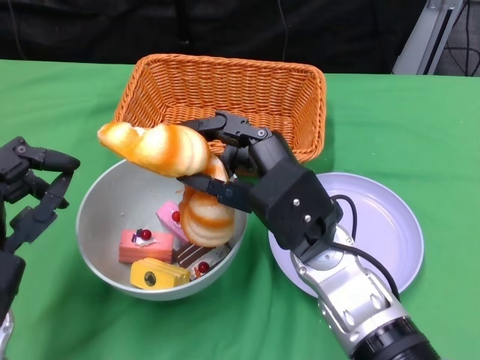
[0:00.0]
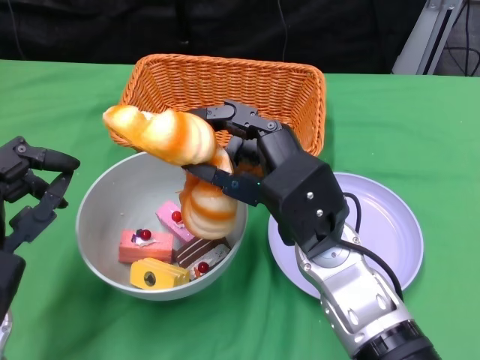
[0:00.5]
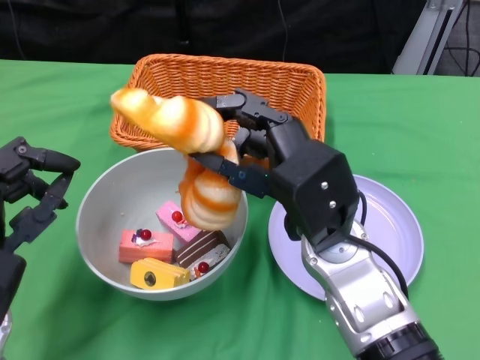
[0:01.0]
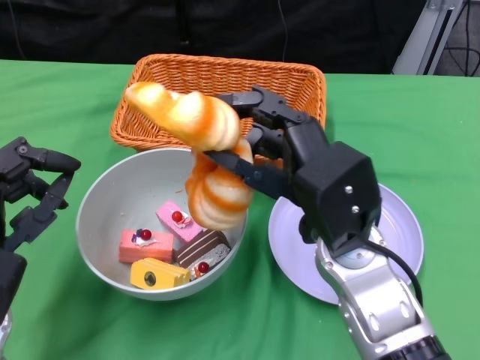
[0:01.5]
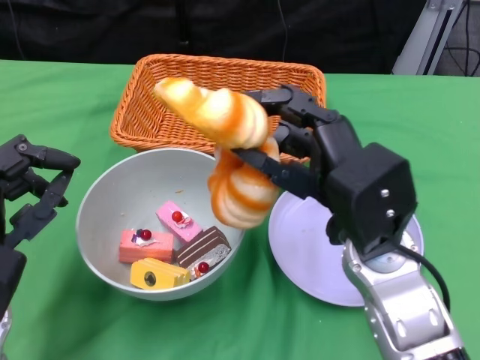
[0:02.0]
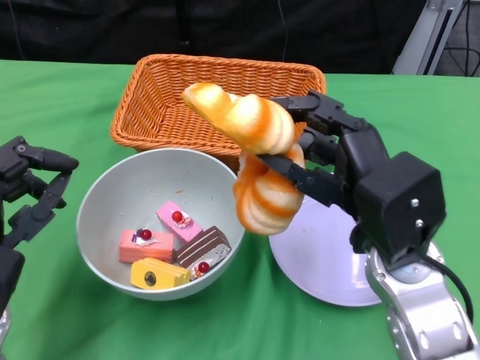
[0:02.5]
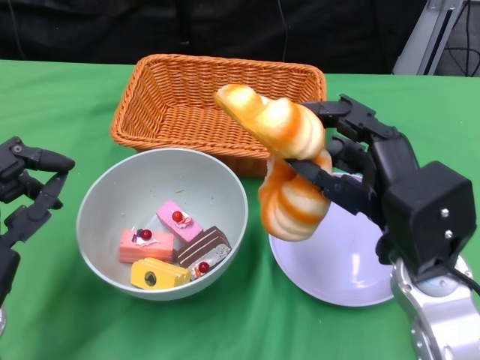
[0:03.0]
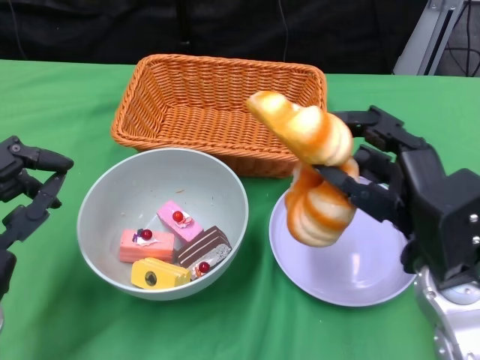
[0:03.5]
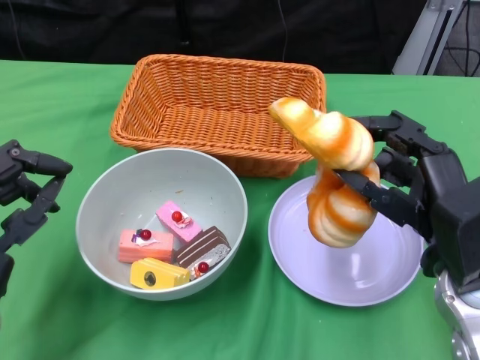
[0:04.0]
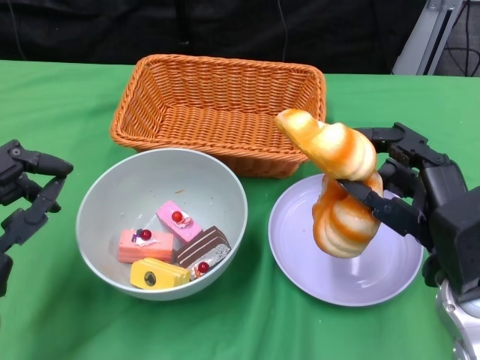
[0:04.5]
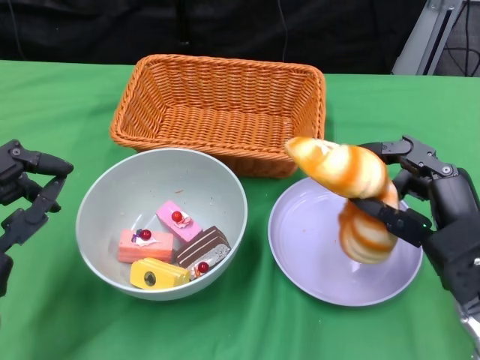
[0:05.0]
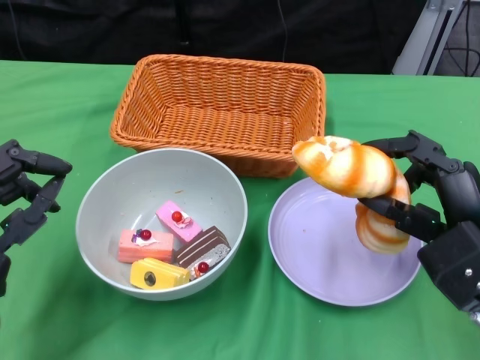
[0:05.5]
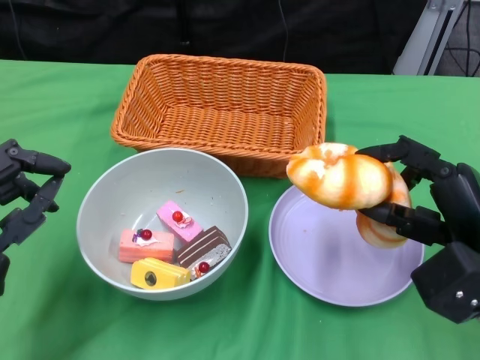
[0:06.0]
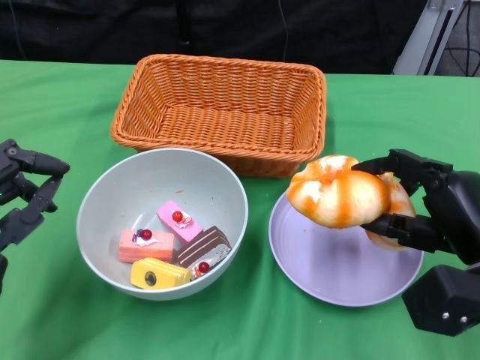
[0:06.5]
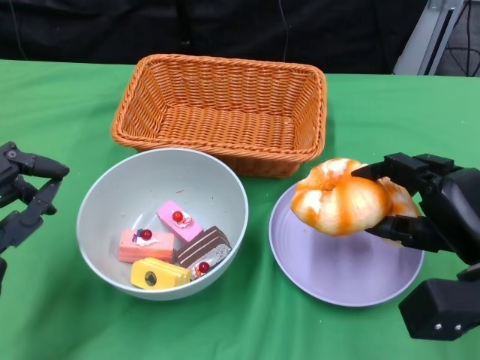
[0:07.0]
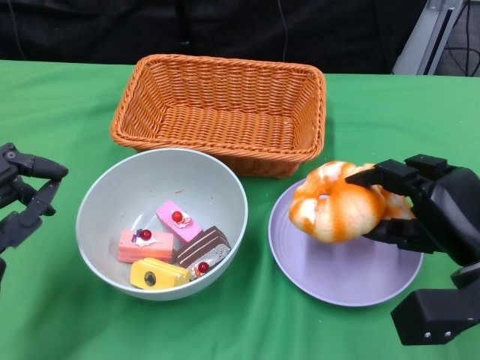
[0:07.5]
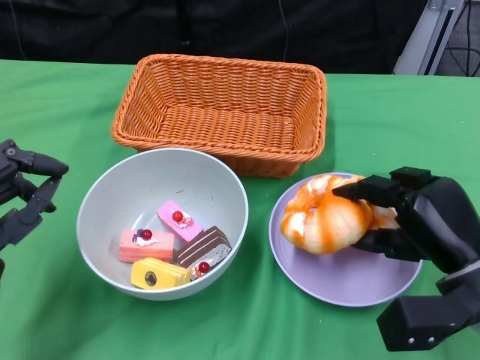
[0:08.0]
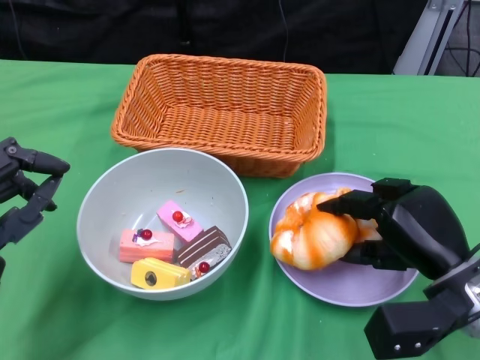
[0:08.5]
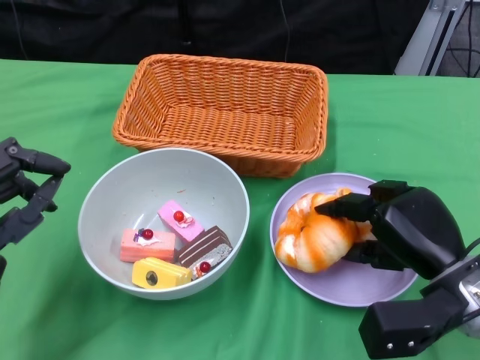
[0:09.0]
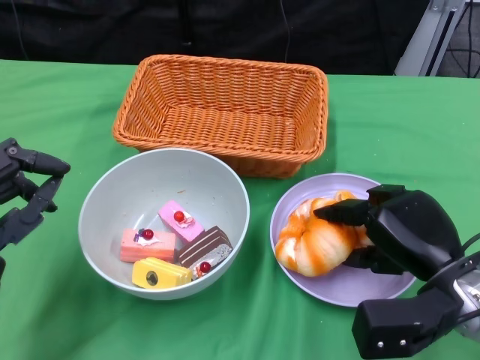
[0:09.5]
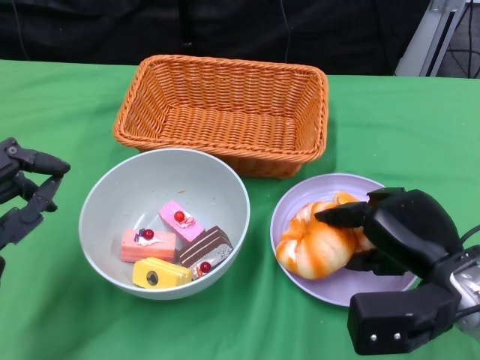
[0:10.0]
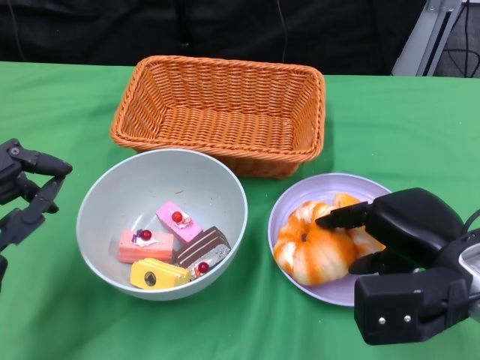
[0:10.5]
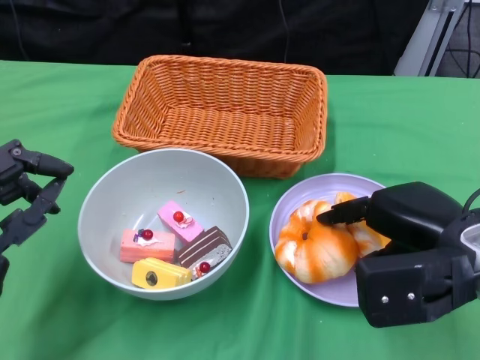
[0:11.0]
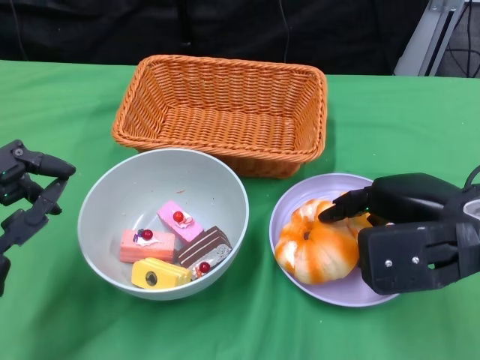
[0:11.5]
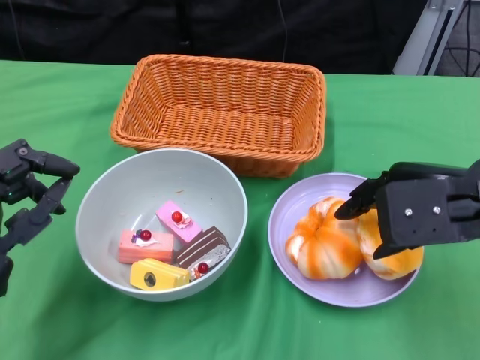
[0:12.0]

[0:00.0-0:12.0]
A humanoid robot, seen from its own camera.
0:00.0 to 0:02.0: The right hand changes place by some 5 cm.
0:02.0 to 0:04.0: The right hand is displaced to the right by roughly 10 cm.
0:04.0 to 0:06.0: The right hand changes place by approximately 5 cm.
0:10.0 to 0:12.0: The right hand heads upward, covering about 10 cm.

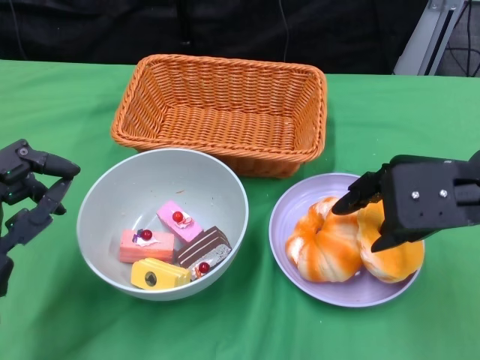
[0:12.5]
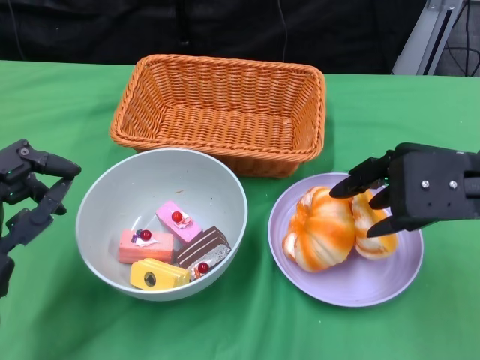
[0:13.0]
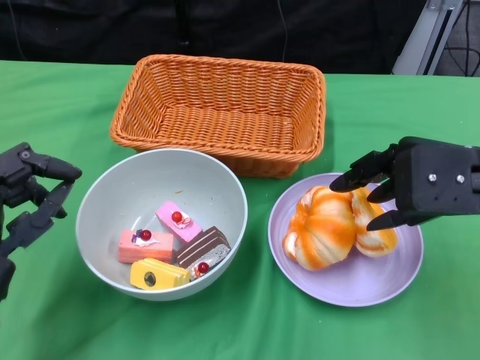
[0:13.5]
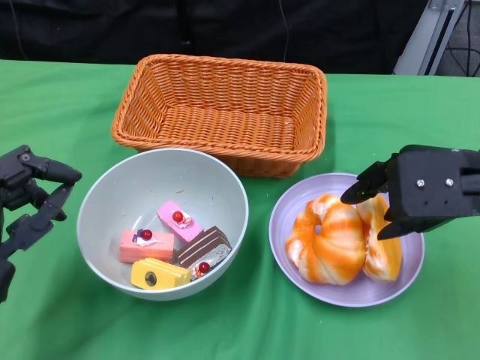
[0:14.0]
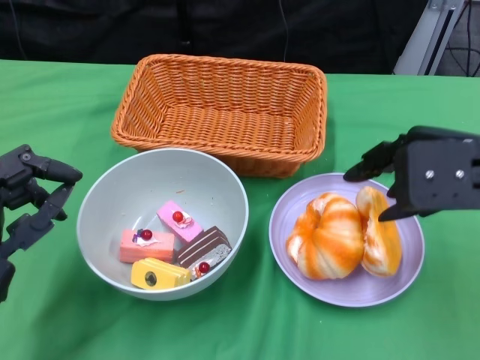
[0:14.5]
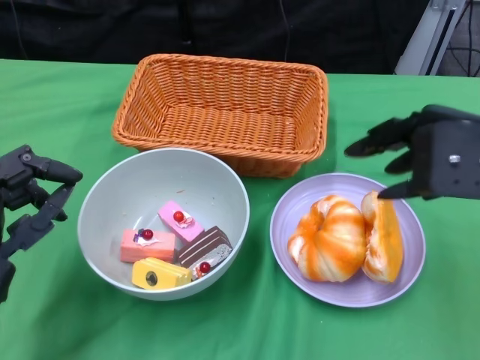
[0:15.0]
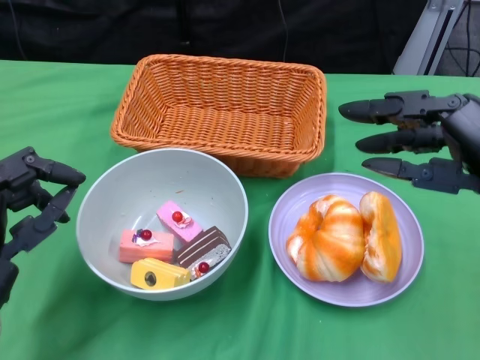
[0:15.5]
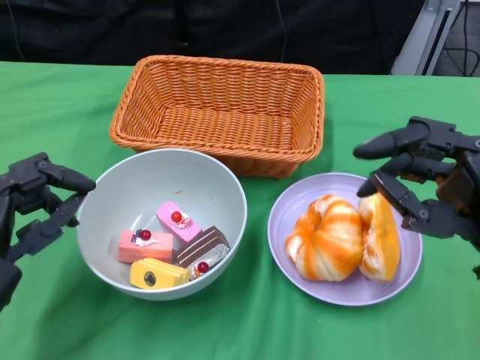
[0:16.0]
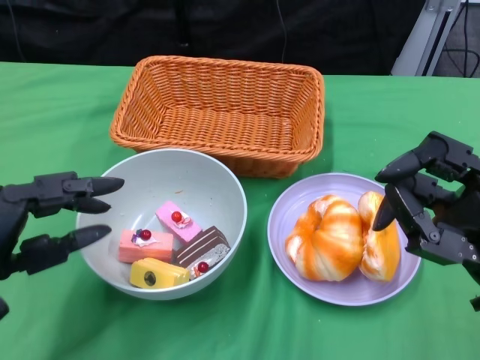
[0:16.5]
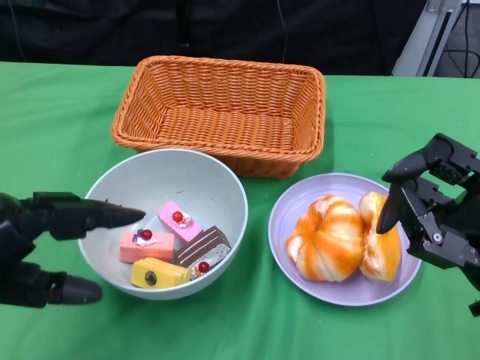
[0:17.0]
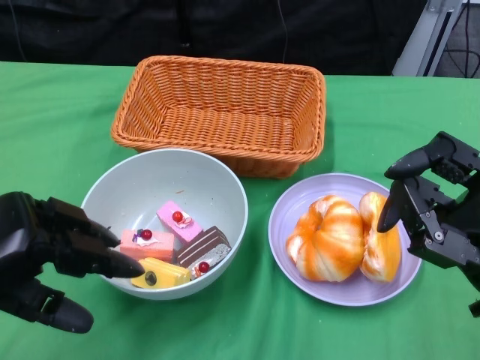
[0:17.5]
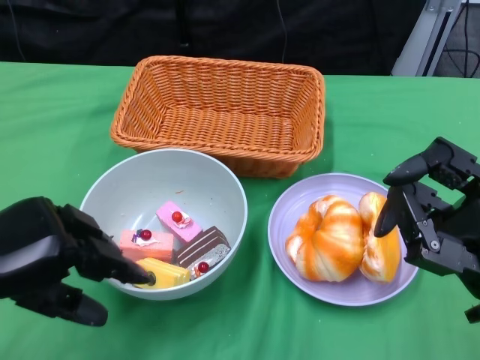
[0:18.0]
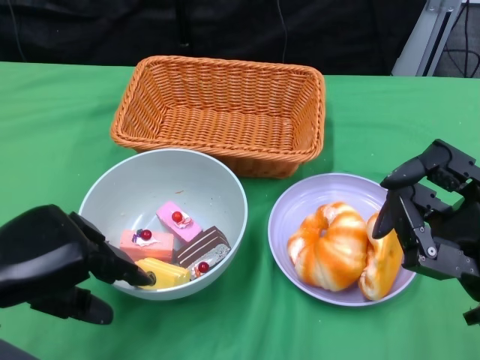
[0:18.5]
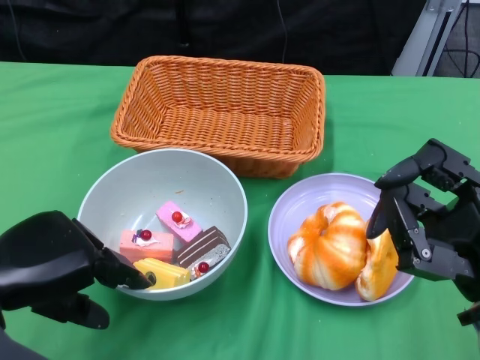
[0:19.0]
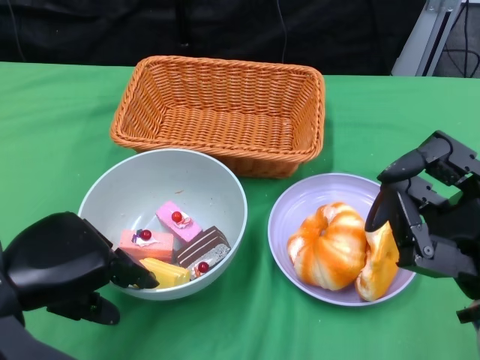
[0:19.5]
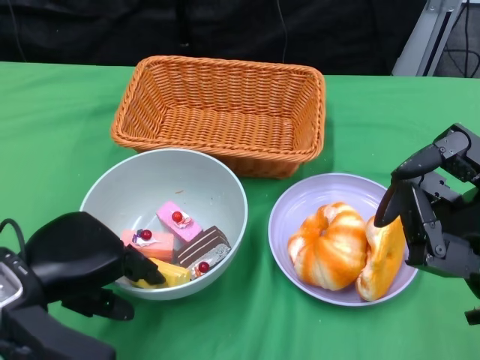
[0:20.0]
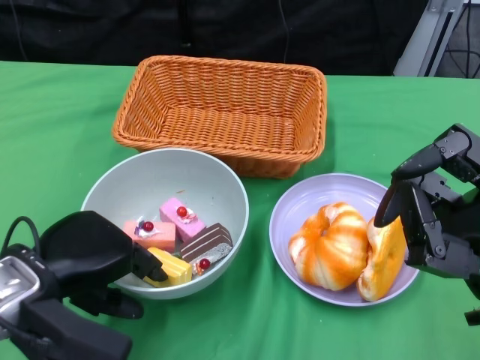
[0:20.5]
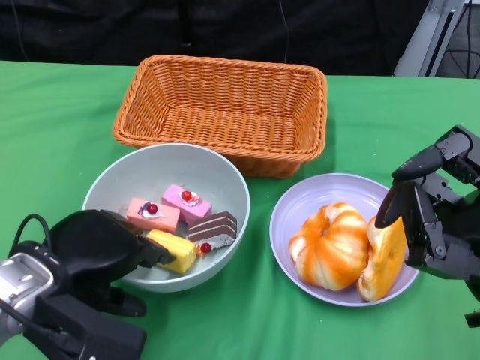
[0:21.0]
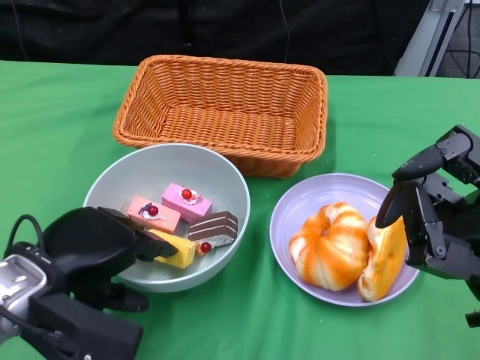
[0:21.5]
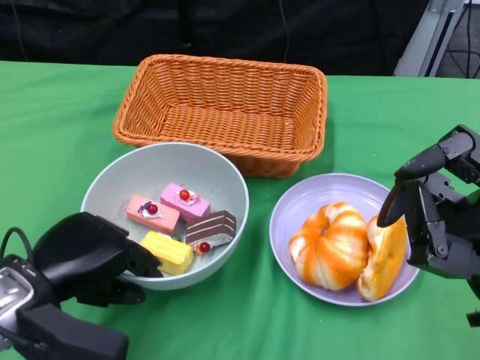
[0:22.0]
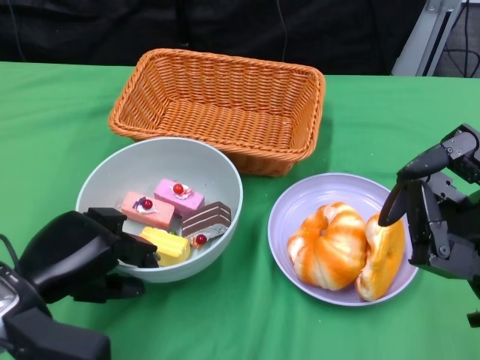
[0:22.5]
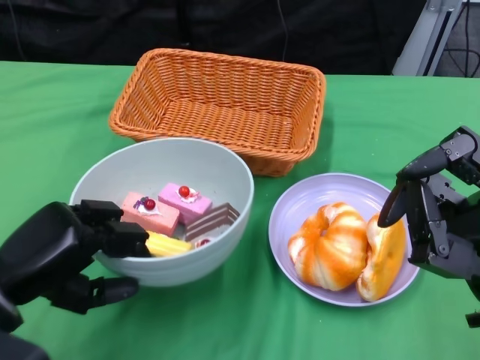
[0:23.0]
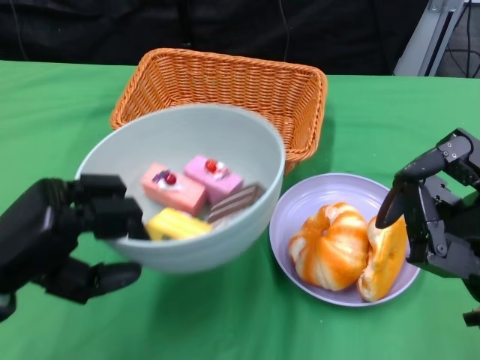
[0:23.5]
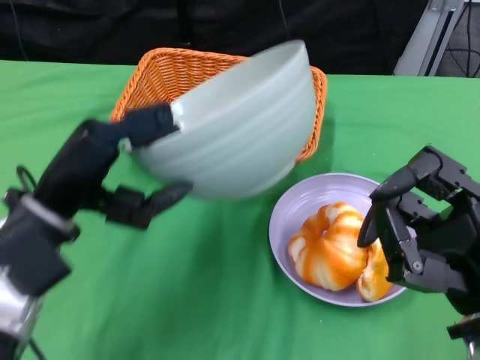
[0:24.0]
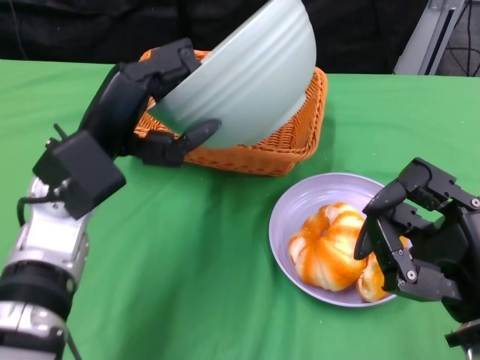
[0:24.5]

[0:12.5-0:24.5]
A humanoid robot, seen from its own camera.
Step, 0:12.5 to 0:22.5: Grasp the bowl with the left gripper.
0:12.5 to 0:14.5: The hands make only small movements.
0:14.5 to 0:16.5: The right hand travels backward and downward by some 10 cm.
0:18.5 to 0:20.5: The left hand ends up about 5 cm from where it was.
0:22.5 to 0:24.5: The left hand shifts about 15 cm upward, forward and to the right.

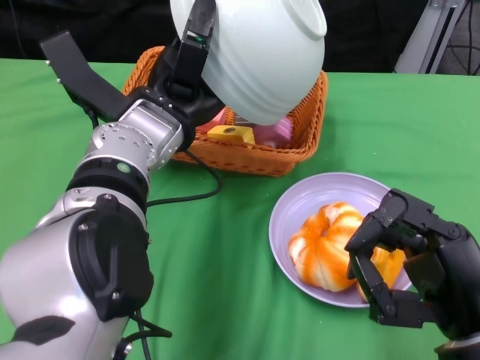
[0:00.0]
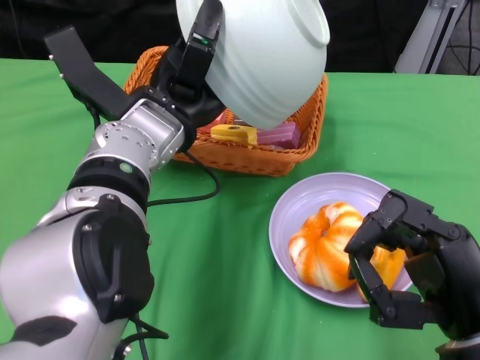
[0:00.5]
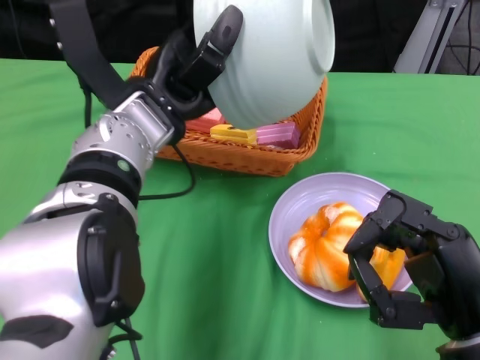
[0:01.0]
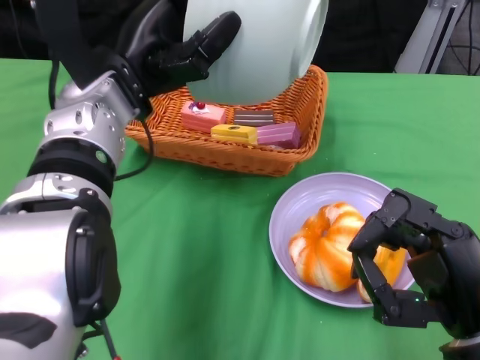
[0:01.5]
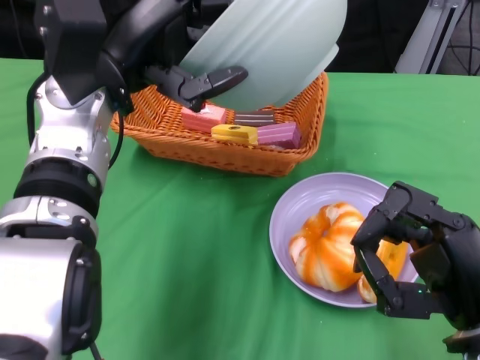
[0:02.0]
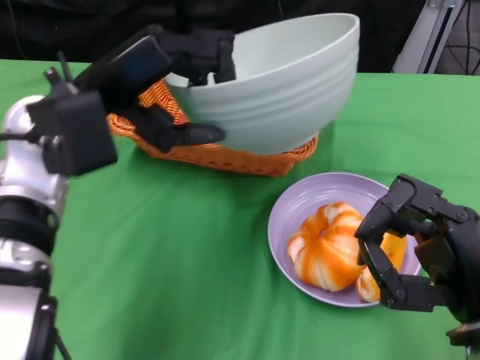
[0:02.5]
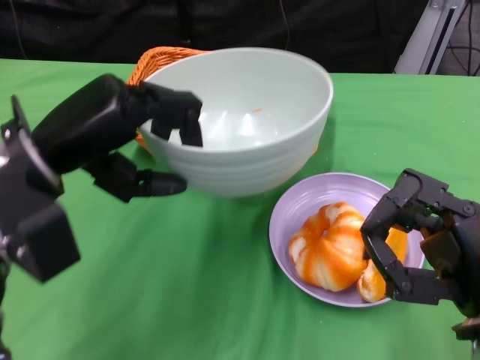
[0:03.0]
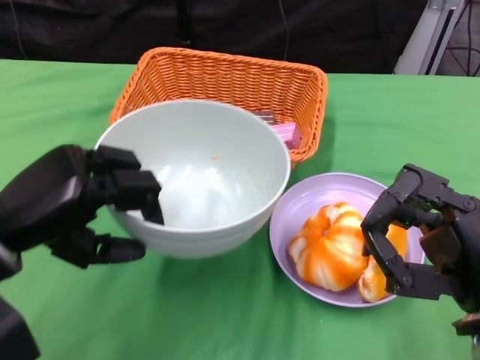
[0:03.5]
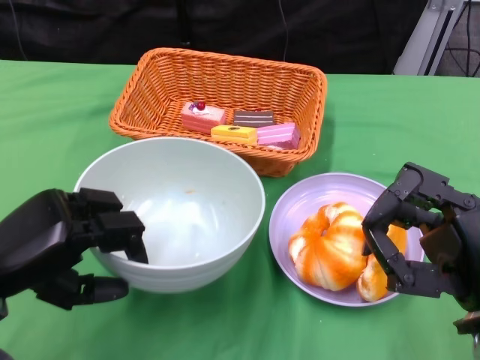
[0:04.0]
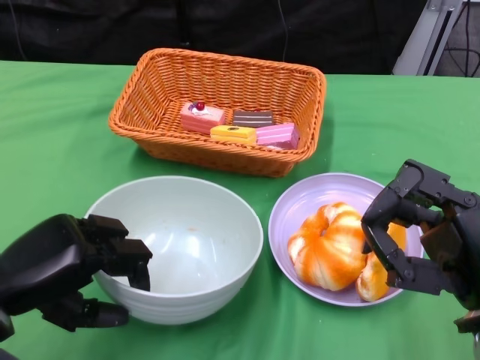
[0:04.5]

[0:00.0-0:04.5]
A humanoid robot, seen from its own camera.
0:00.0 to 0:02.0: The left hand changes place by approximately 5 cm.
0:02.0 to 0:04.5: The left hand heads backward, downward and to the left, covering about 20 cm.
